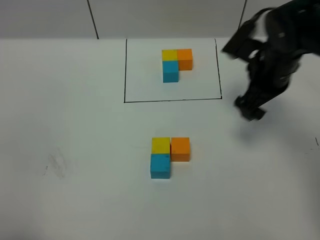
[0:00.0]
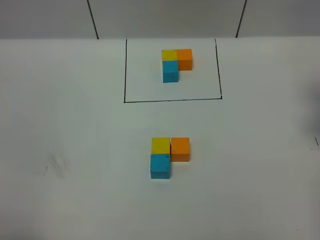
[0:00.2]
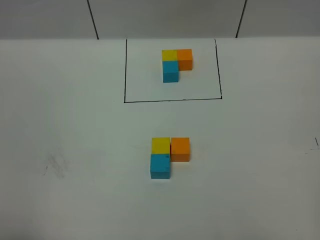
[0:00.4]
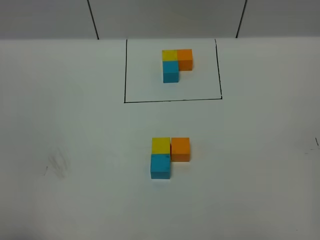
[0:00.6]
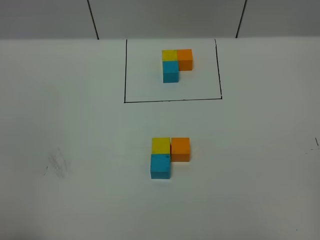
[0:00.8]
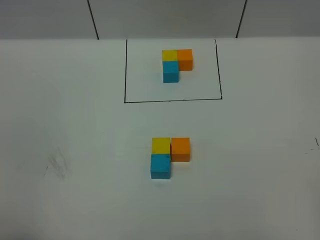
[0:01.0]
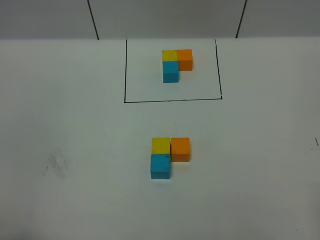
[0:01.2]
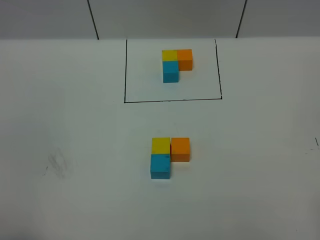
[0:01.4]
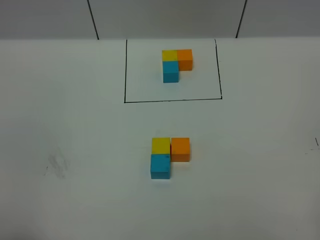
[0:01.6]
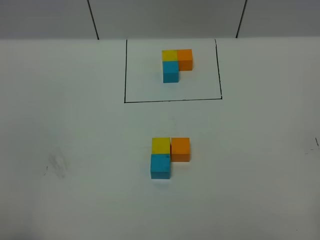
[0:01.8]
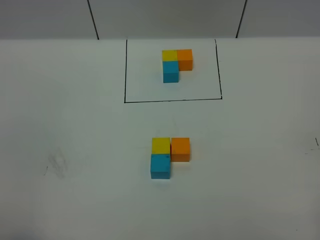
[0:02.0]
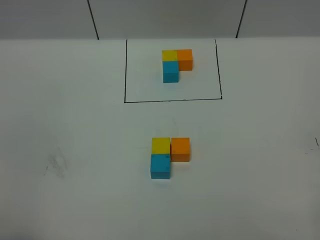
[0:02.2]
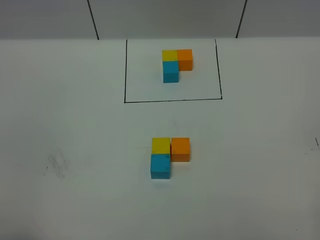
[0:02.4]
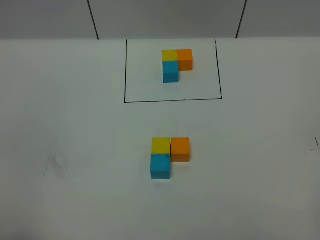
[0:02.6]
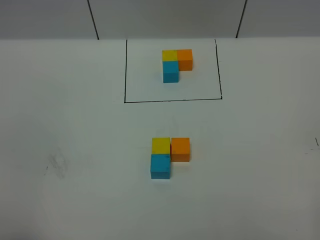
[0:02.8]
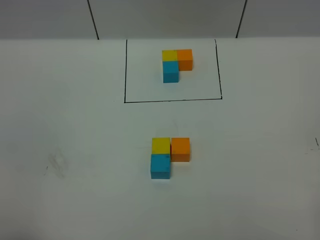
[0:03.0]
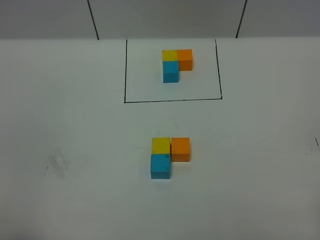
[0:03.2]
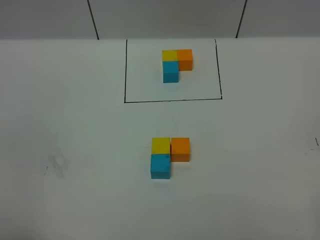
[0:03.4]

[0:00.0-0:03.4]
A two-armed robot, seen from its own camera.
Task of the whole recording: According to the building block template in front, assemble the scattered blocks together.
0:00.0 to 0:01.6: The right gripper moves backward, some 40 cm.

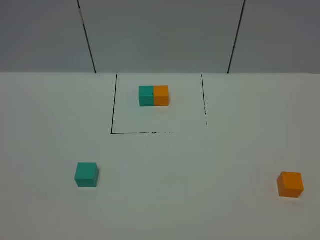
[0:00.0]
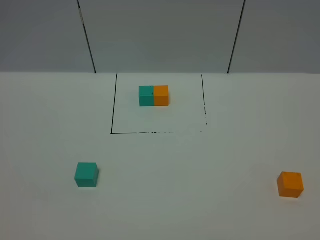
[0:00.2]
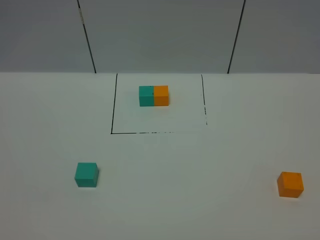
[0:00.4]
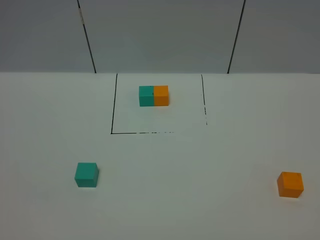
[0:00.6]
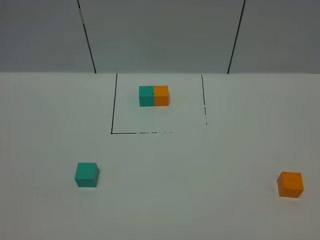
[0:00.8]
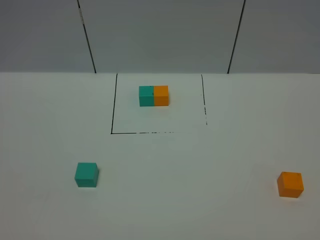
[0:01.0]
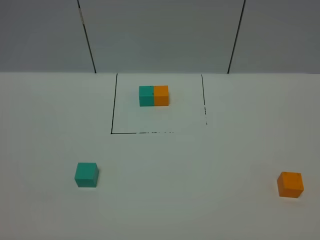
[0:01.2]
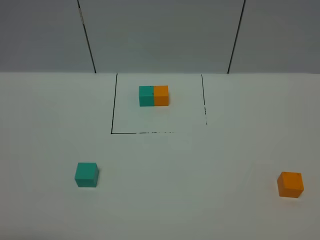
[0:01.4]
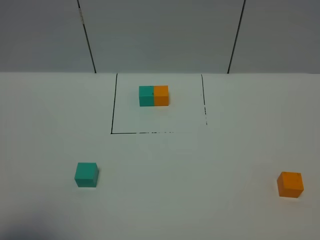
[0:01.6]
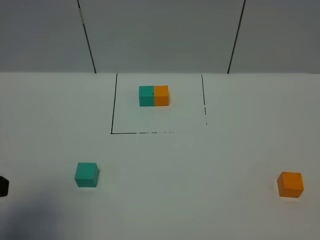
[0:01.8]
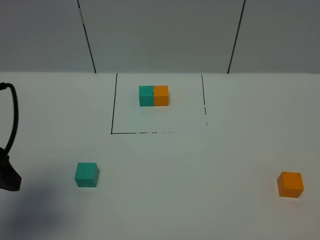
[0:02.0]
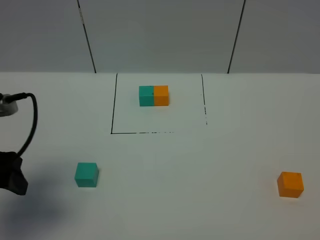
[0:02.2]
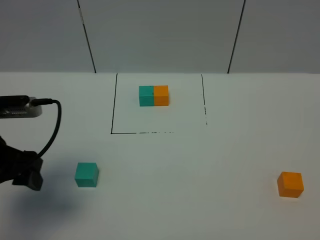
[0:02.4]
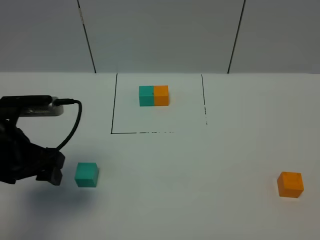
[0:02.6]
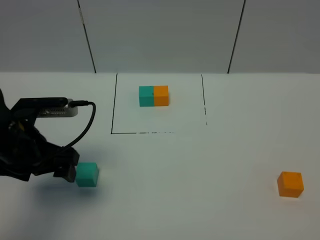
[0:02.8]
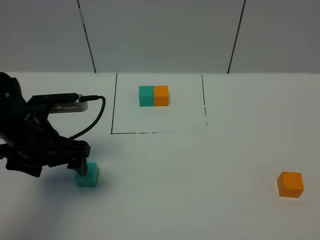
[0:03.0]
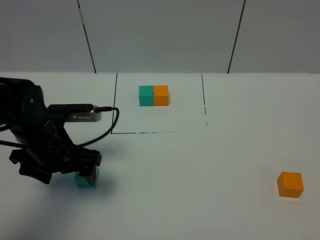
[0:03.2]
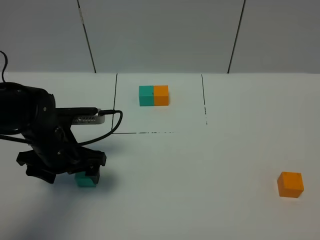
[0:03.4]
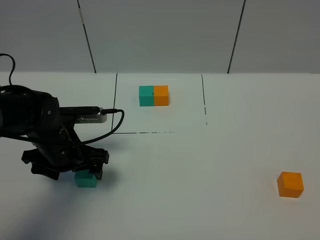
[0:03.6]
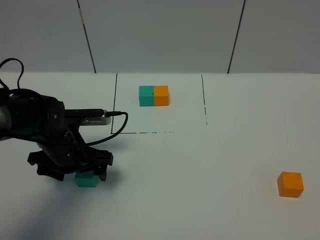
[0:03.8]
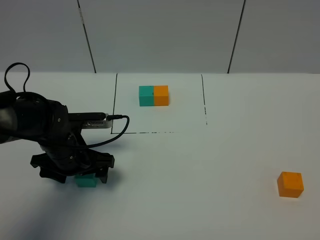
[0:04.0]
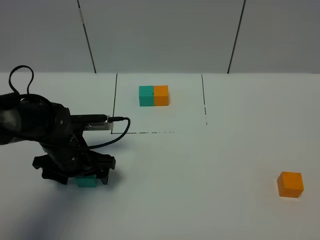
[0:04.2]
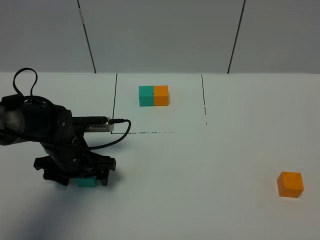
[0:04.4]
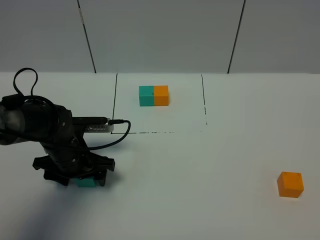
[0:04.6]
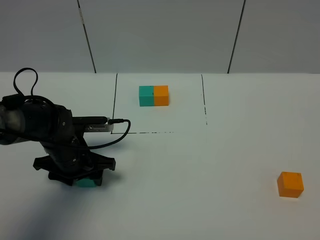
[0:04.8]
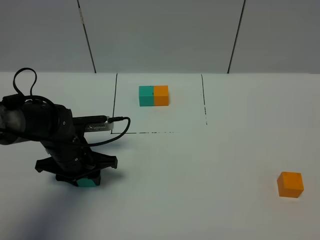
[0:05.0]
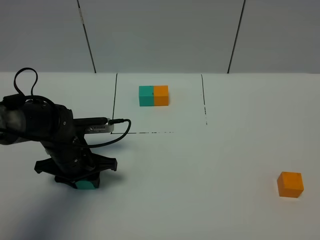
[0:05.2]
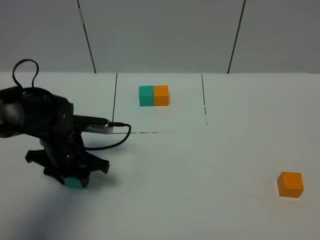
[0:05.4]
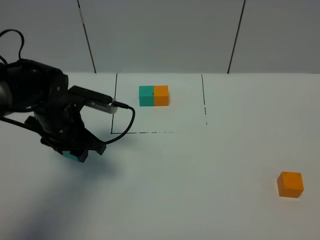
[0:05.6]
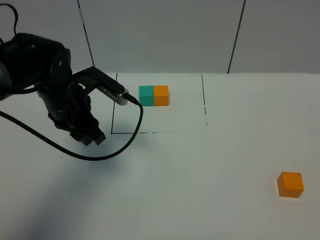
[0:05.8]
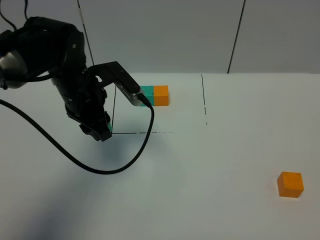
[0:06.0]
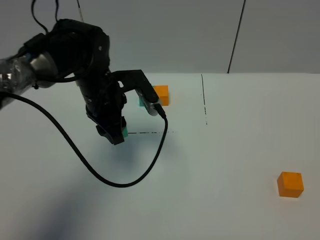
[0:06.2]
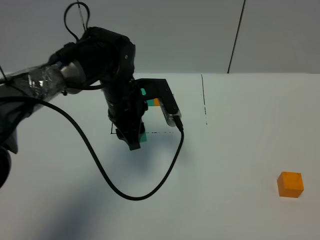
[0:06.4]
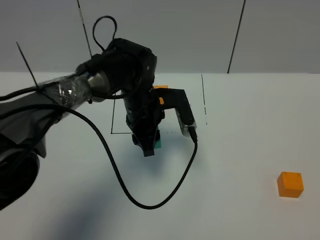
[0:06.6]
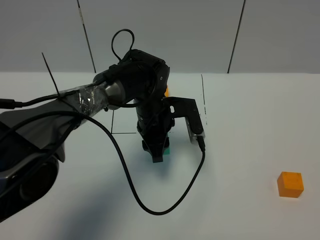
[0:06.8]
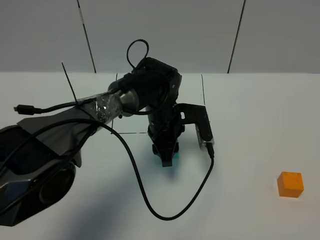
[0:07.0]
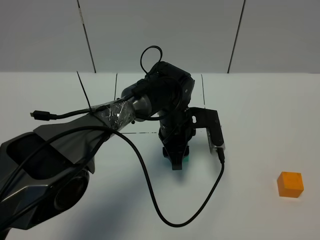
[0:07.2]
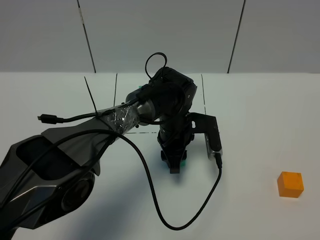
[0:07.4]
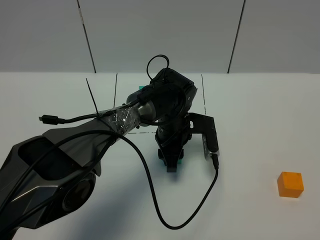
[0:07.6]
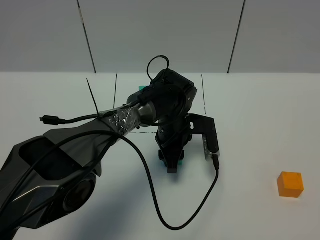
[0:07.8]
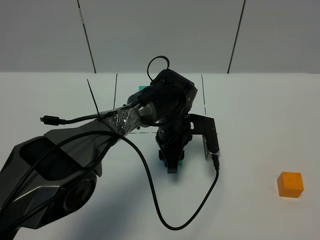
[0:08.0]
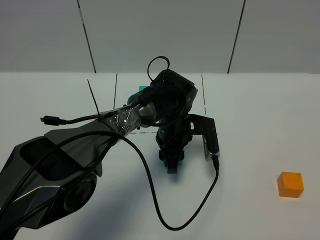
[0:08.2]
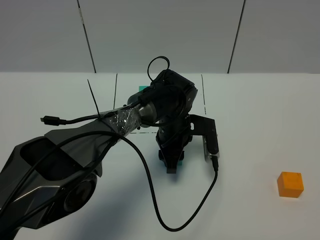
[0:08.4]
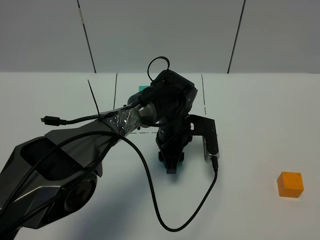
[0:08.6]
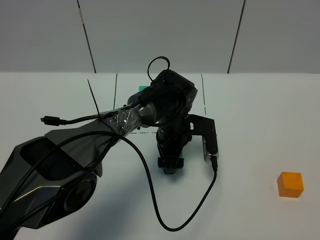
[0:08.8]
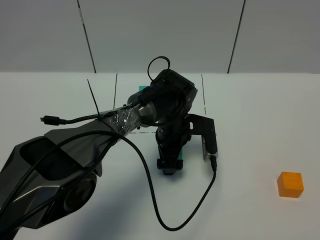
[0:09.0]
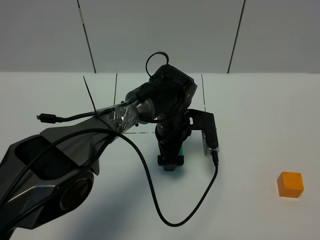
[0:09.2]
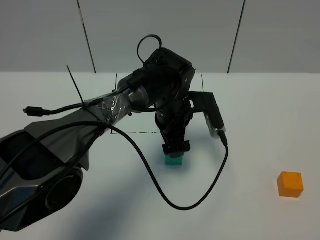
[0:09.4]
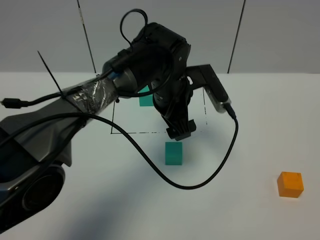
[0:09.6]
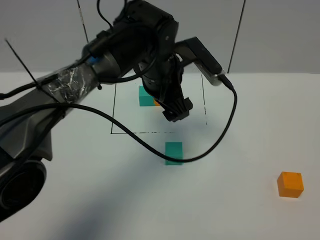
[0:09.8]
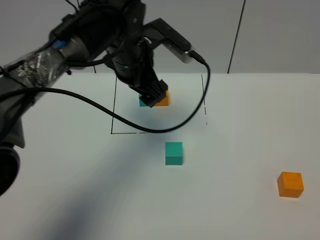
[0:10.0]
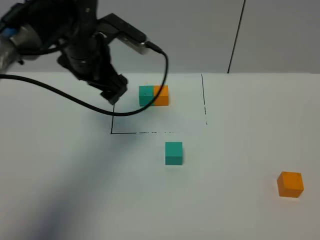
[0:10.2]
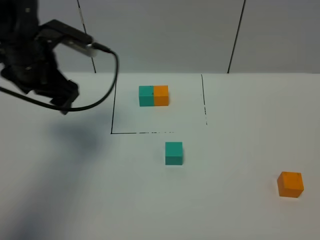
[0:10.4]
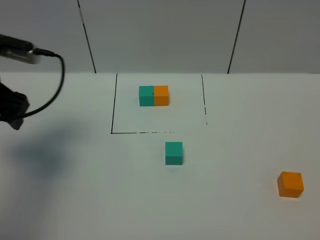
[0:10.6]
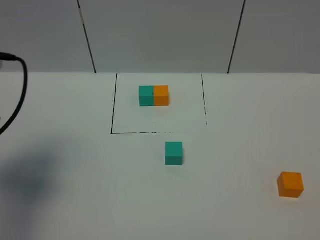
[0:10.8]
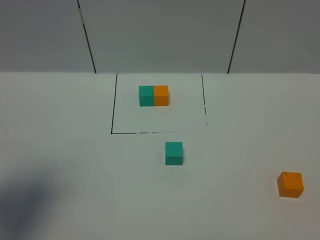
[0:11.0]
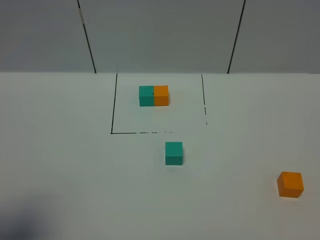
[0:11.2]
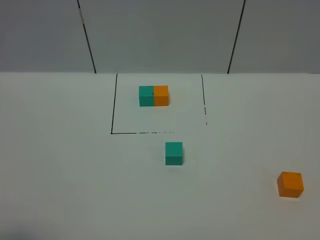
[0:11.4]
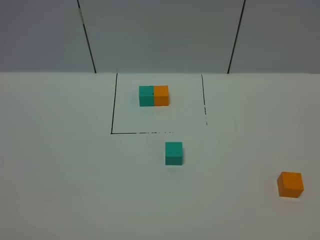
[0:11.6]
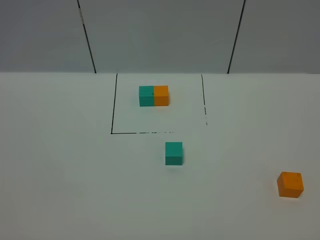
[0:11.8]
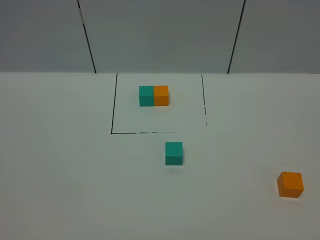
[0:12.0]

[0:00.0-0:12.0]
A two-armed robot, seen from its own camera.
Task of the whole recording: According to the building block template in front, assemble the scattered blocks together.
Step, 0:01.8 to 0:08.8: Put the green cube in the center of the table.
0:00.0 to 0:01.6: The left gripper is displaced forward and upward by about 10 cm, and opens its fingers.
0:01.6 to 0:03.0: The left gripper goes about 25 cm forward and downward.
0:03.0 to 0:04.4: The left gripper travels downward by about 10 cm.
0:04.4 to 0:06.0: The left gripper goes about 10 cm upward, and closes up.
0:06.0 to 0:07.6: The left gripper travels to the right and downward by about 20 cm.
0:07.6 to 0:09.0: The left gripper opens.
0:09.0 to 0:10.4: The left gripper moves to the left and upward, approximately 30 cm.
0:10.4 to 0:12.0: The left gripper goes roughly 40 cm backward.

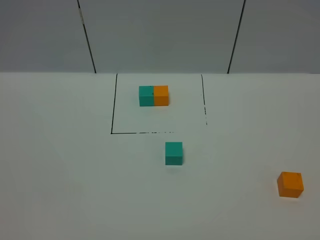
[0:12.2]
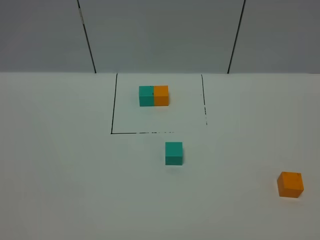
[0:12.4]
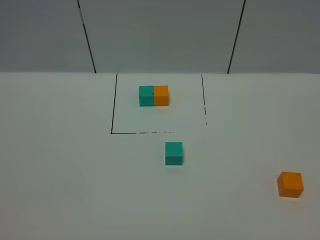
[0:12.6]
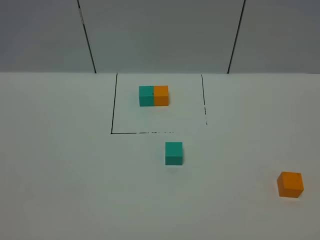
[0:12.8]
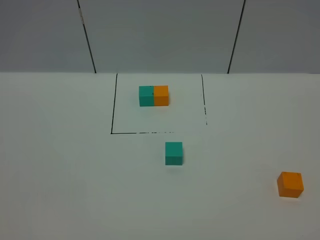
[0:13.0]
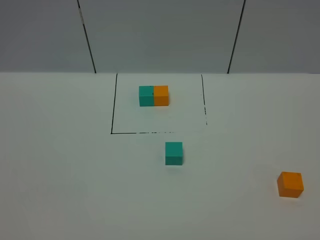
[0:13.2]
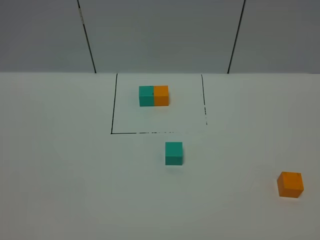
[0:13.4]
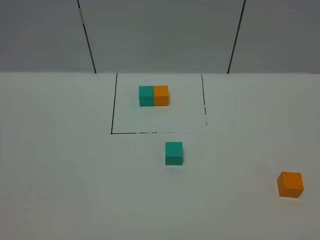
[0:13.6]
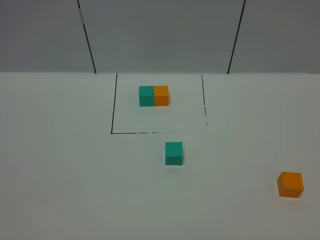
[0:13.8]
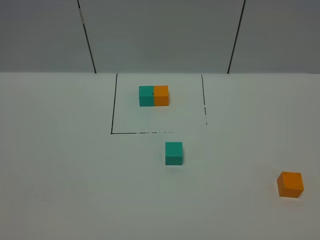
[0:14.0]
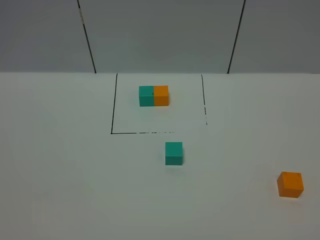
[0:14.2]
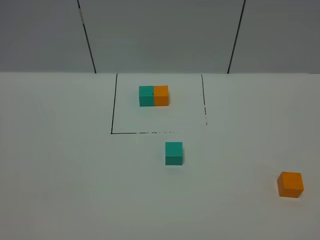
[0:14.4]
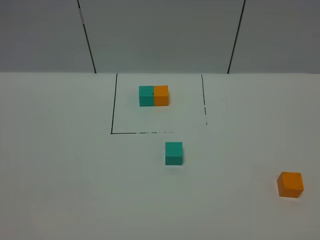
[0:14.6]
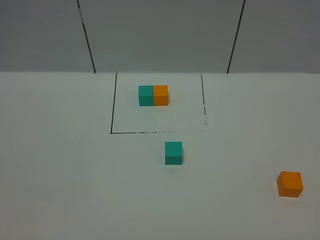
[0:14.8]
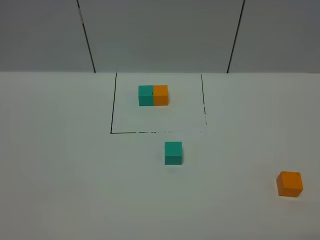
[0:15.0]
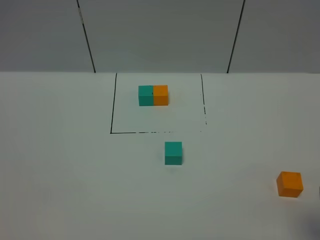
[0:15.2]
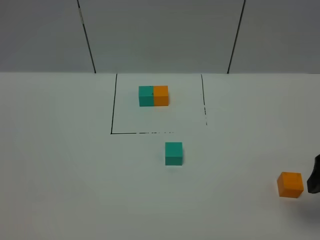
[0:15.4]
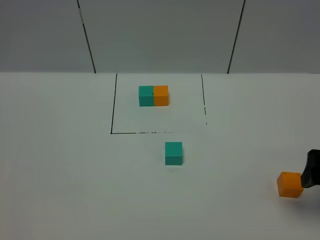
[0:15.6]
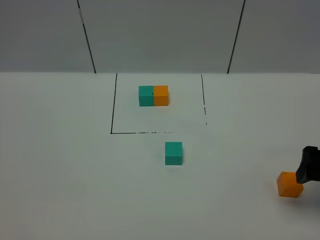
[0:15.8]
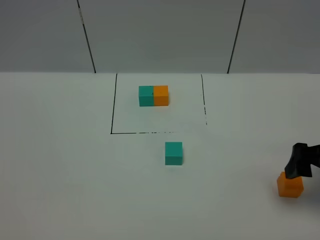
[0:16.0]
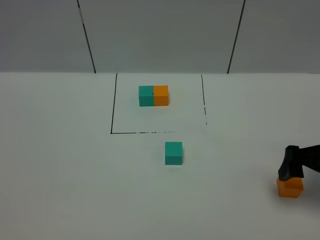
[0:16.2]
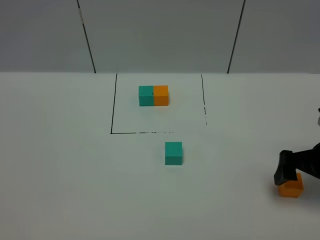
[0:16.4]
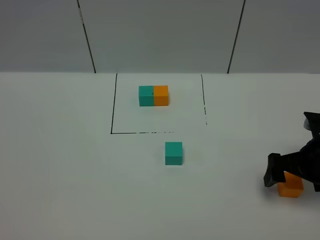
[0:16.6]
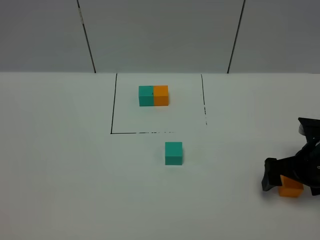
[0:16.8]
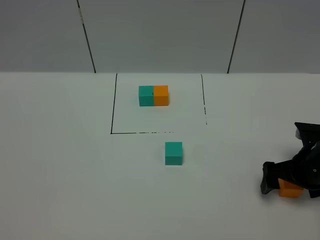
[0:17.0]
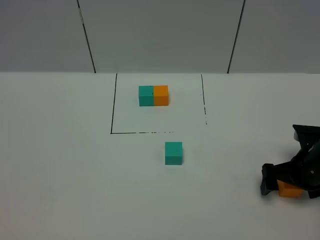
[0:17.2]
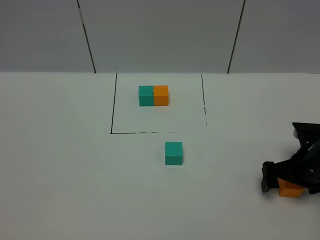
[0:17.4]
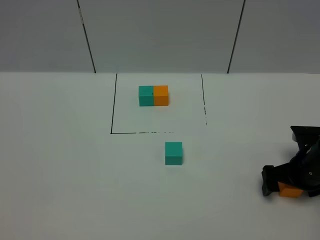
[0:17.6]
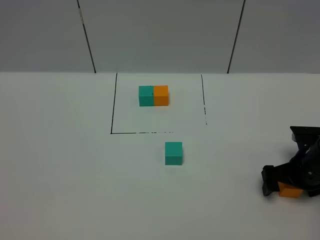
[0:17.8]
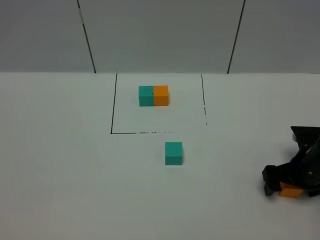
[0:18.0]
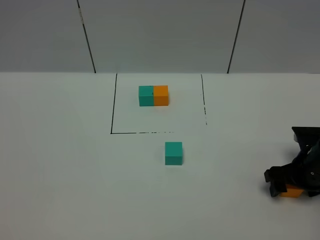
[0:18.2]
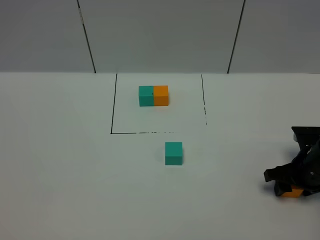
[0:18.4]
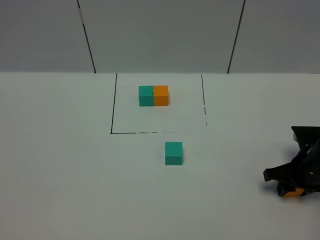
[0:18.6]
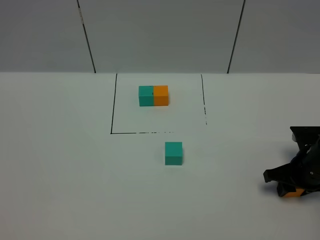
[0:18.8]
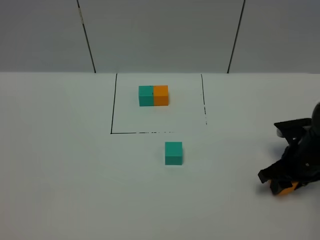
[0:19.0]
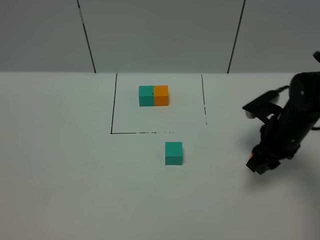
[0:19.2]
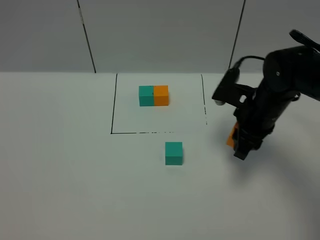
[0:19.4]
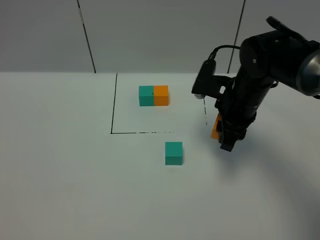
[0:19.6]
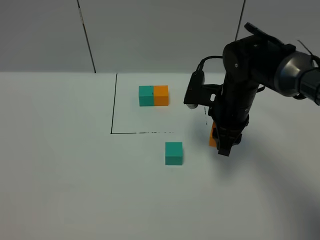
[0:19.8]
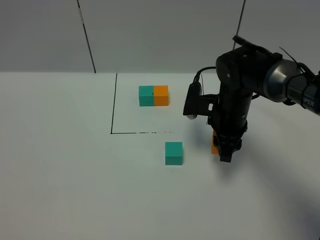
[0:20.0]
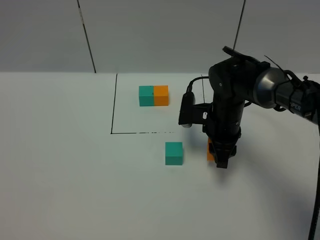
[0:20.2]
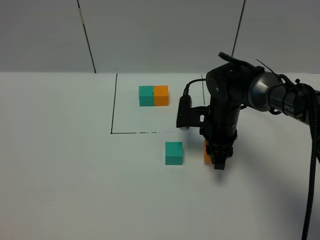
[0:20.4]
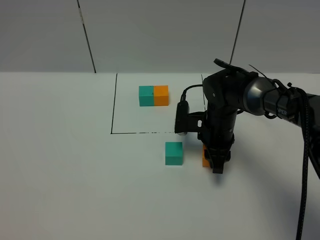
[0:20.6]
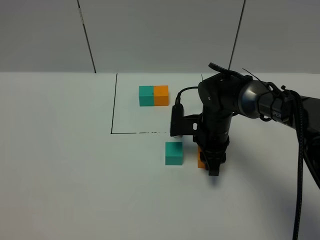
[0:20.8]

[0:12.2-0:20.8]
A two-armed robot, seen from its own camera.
Task of the whole recording: According to the building block template in front, assemble the scattered blocks together.
0:15.0 to 0:16.6: The right gripper shifts approximately 25 cm forward and downward.
0:16.6 to 0:18.0: The right gripper heads downward, covering approximately 5 cm.
0:18.0 to 0:19.4: The right gripper heads to the left, upward and forward, covering approximately 15 cm, and closes its fingers.
0:19.4 to 0:20.8: The right gripper goes approximately 10 cm downward and to the left.
